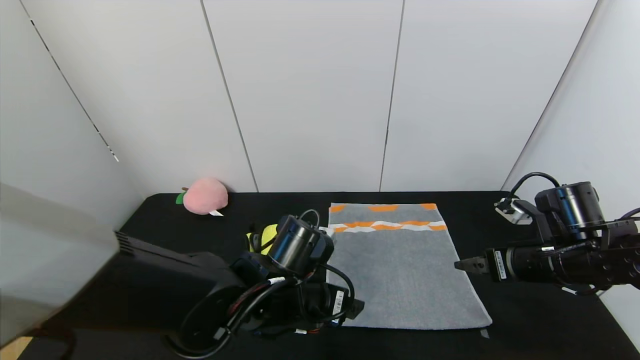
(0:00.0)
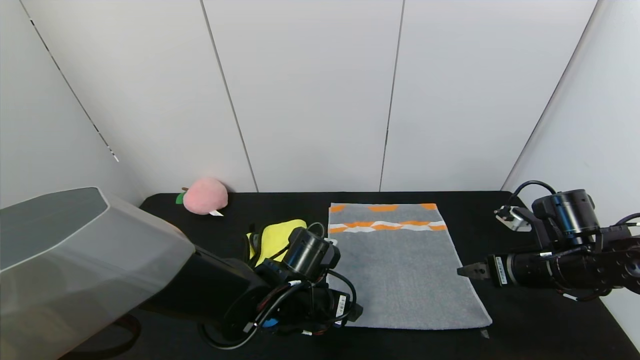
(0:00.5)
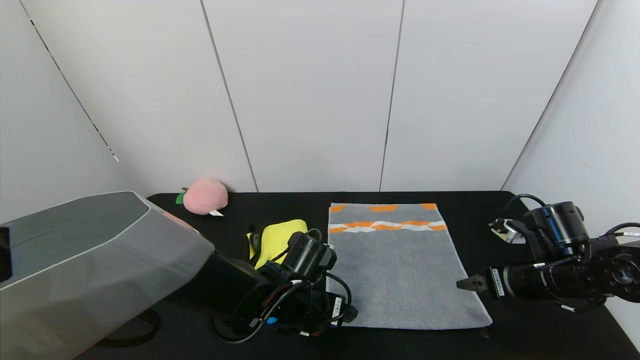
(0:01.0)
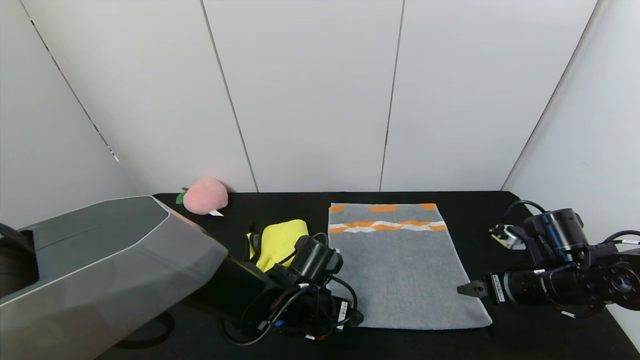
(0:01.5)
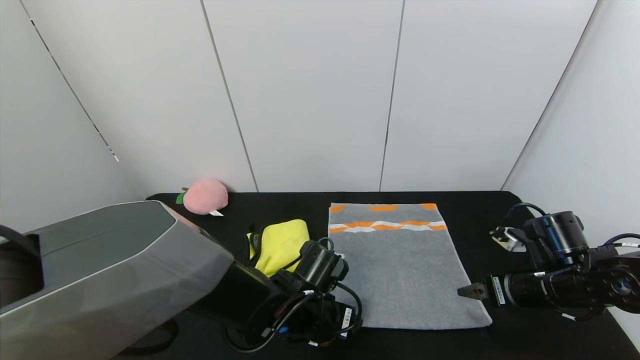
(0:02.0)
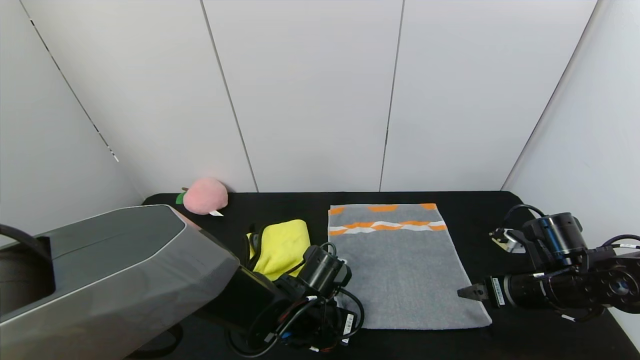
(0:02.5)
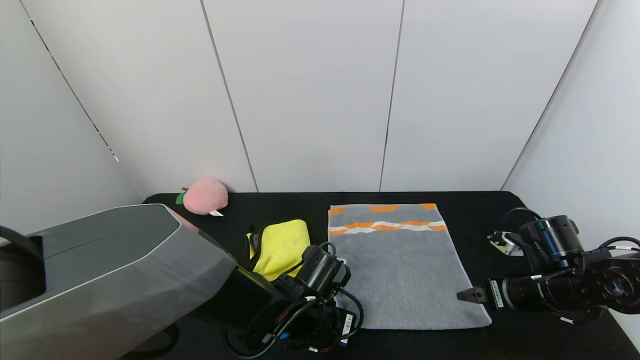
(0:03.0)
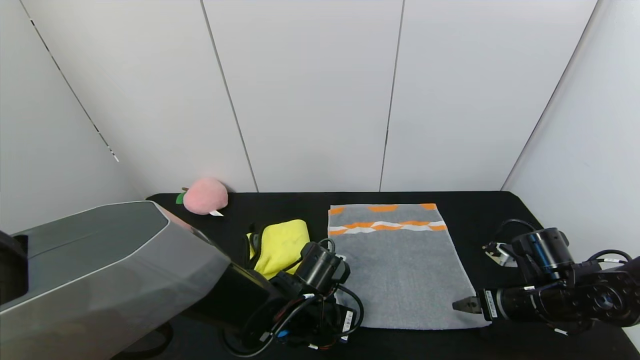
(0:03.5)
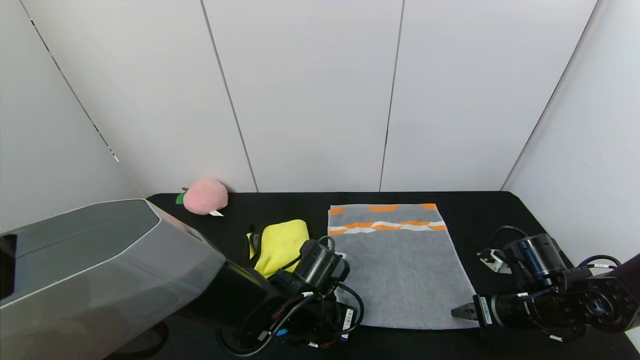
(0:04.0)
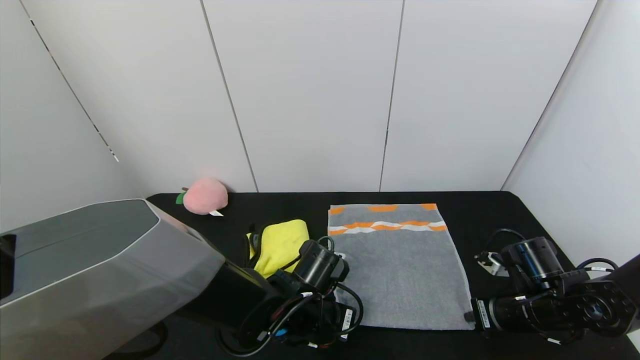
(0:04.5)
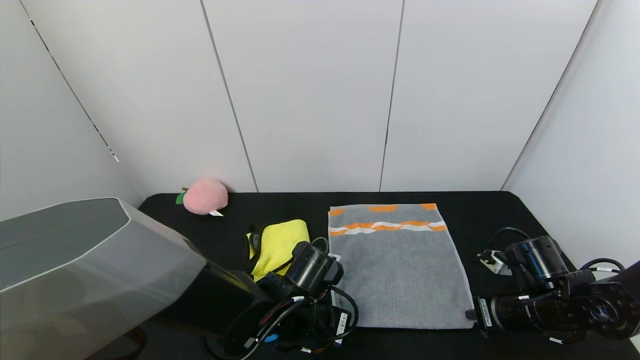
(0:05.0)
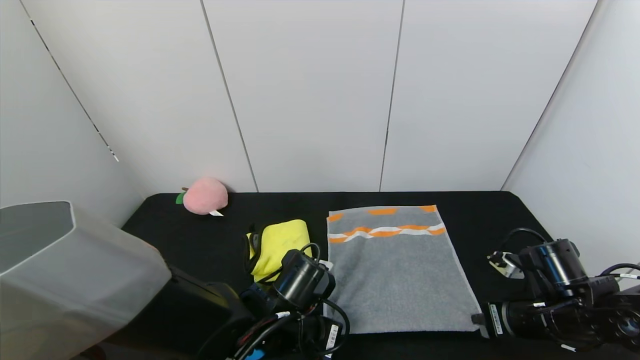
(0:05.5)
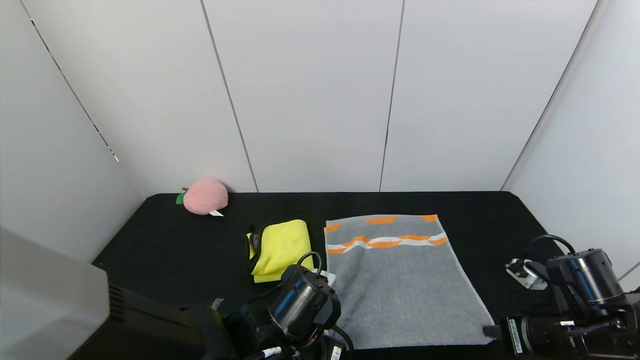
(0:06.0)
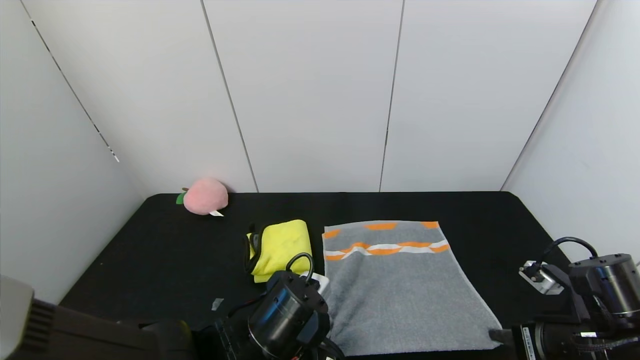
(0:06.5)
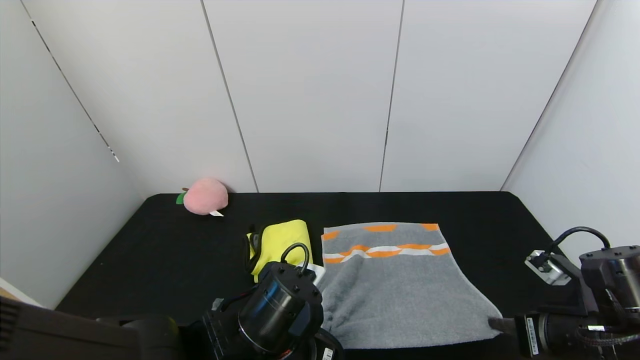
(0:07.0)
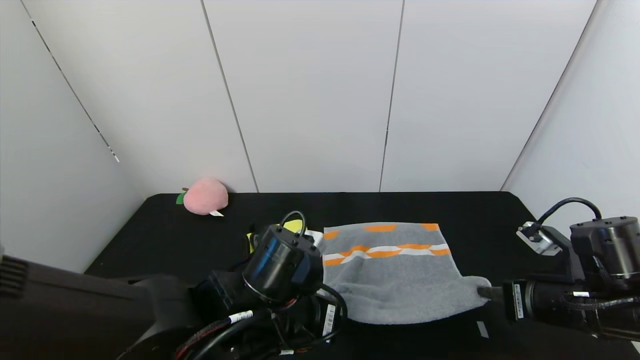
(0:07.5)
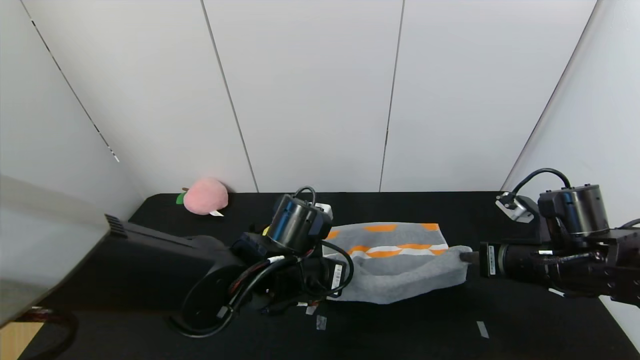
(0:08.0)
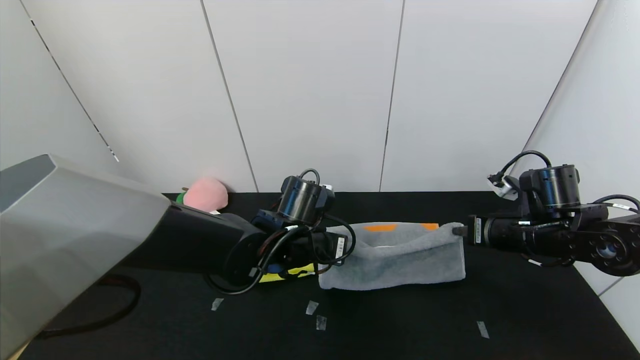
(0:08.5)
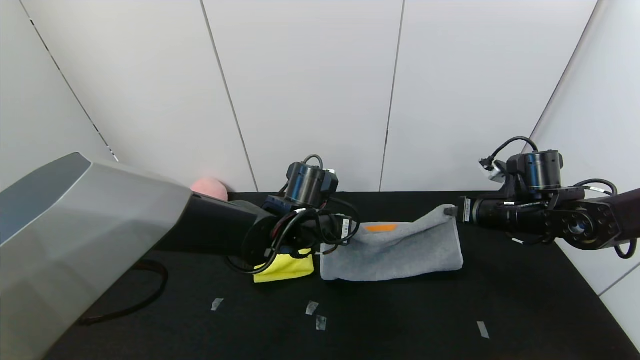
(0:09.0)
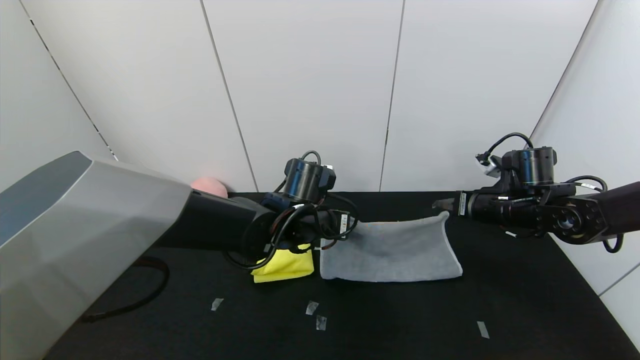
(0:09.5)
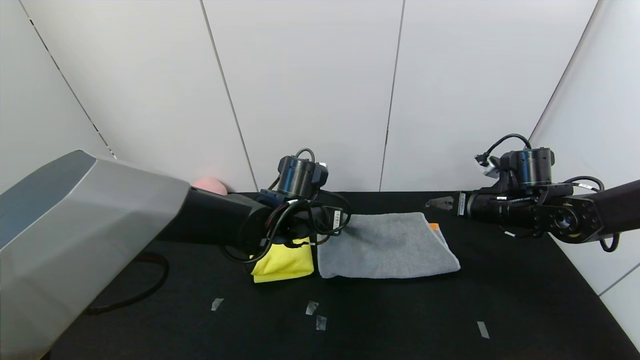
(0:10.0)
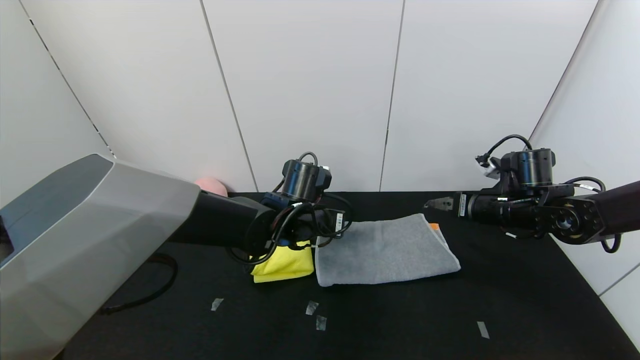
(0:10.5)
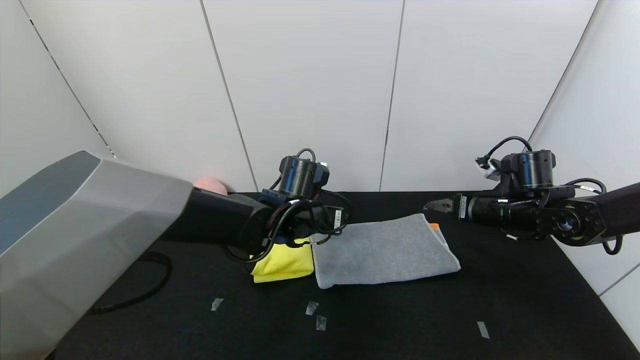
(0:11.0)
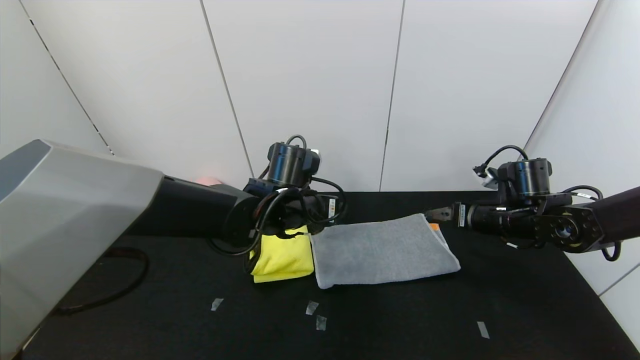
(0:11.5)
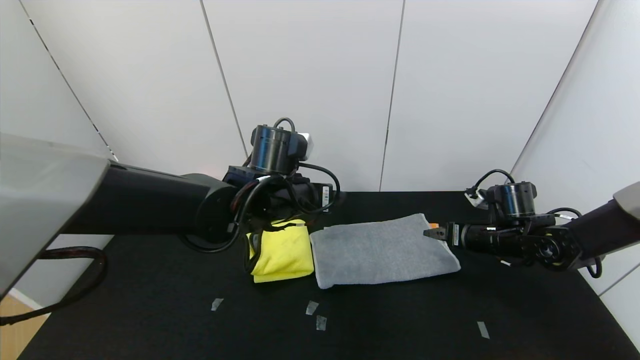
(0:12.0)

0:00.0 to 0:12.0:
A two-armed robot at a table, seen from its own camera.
Task of the whole recording: Use the gripper to fold the yellow towel and grey towel in half twice,then put the yellow towel on the grey towel.
Step, 0:00.0 to 0:11.0: Fold the gray towel upwards with the left gripper.
0:00.0 to 0:02.0: The left gripper moves downward, approximately 5 cm.
0:02.0 to 0:04.0: The left gripper closes its fingers.
0:04.0 to 0:06.0: Both grippers move backward, about 5 cm. The right gripper closes up.
0:06.0 to 0:08.0: The right gripper is displaced forward and upward by some 10 cm. The left gripper moves forward, roughly 5 cm.
0:08.0 to 0:10.0: The grippers both shift forward by roughly 10 cm. The right gripper opens up.
0:10.0 to 0:12.0: The left gripper shifts approximately 5 cm upward, and opens its fingers. The right gripper travels downward by about 5 cm.

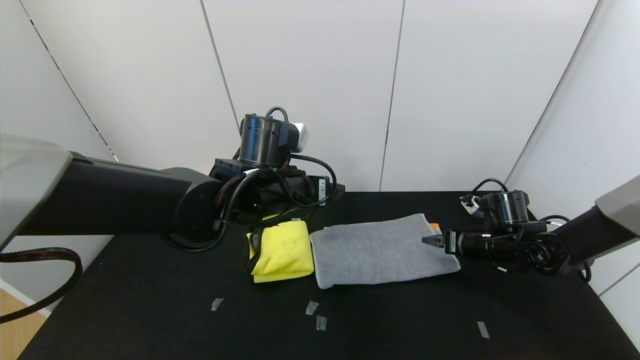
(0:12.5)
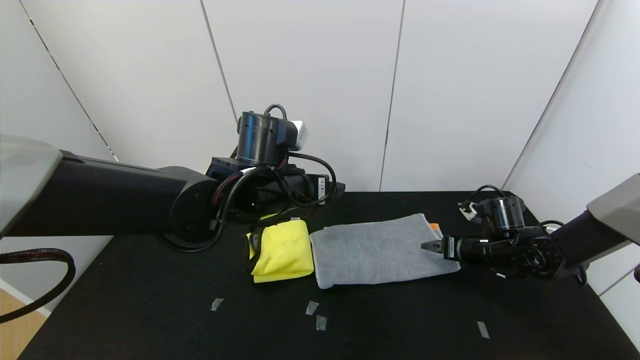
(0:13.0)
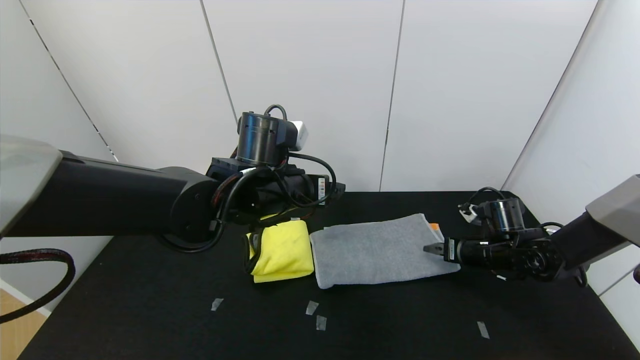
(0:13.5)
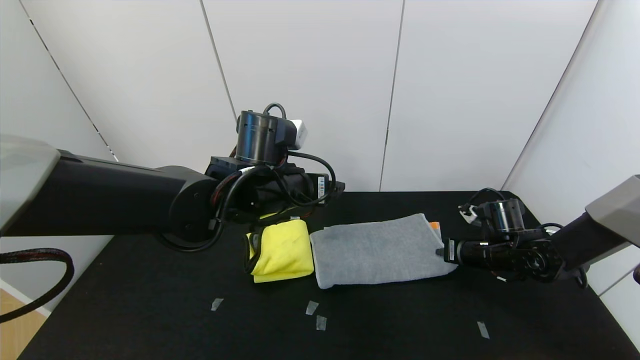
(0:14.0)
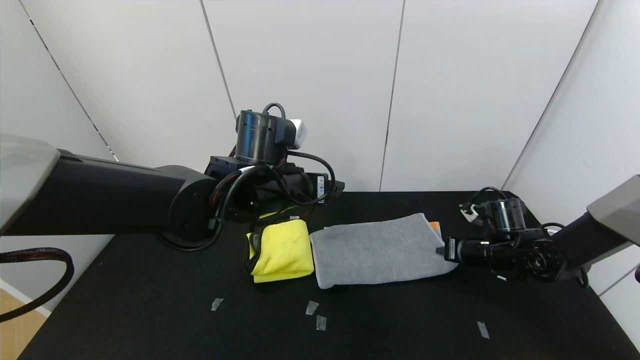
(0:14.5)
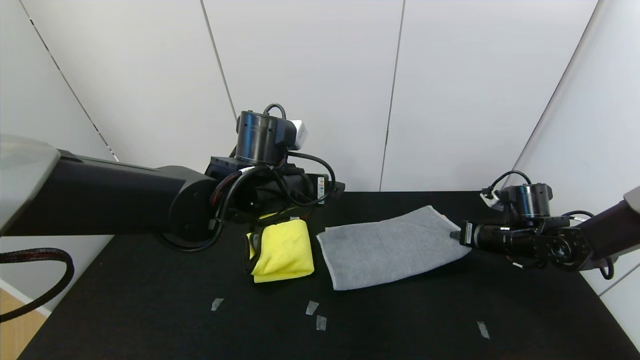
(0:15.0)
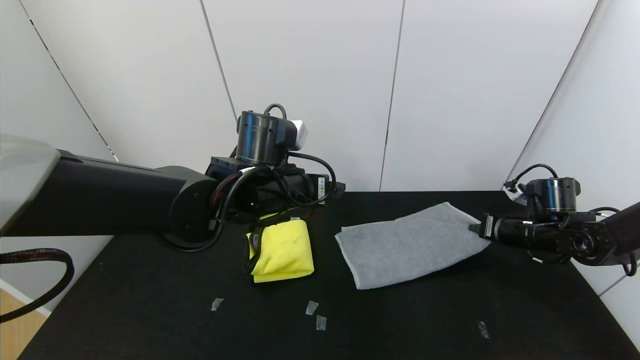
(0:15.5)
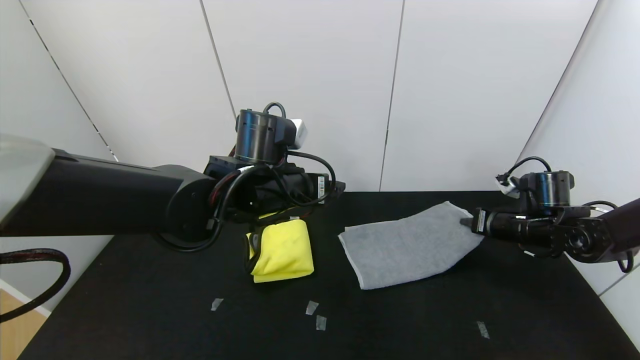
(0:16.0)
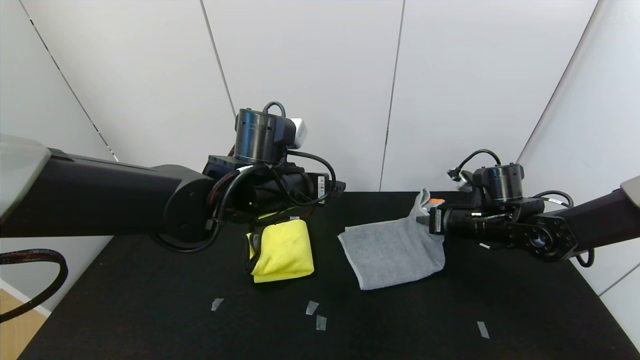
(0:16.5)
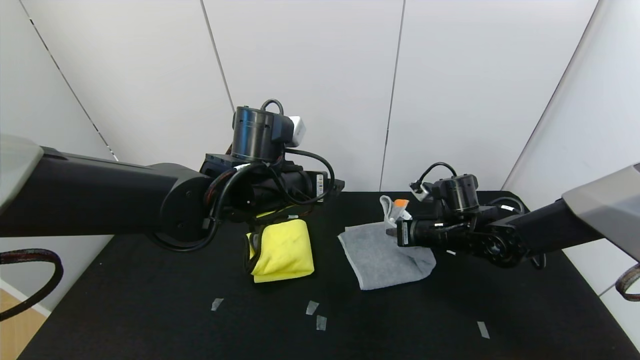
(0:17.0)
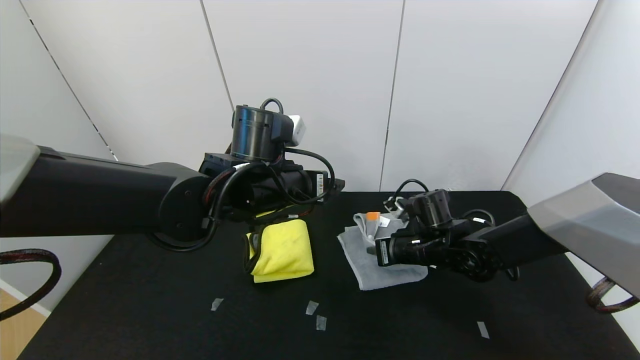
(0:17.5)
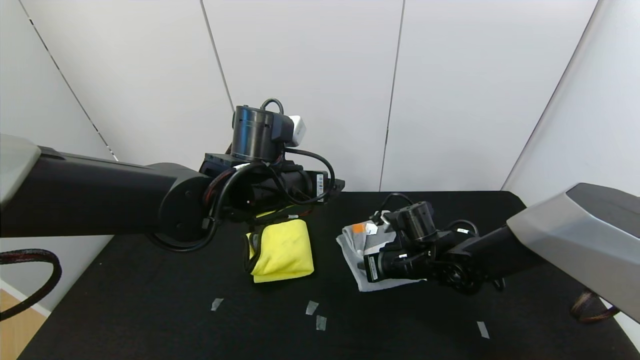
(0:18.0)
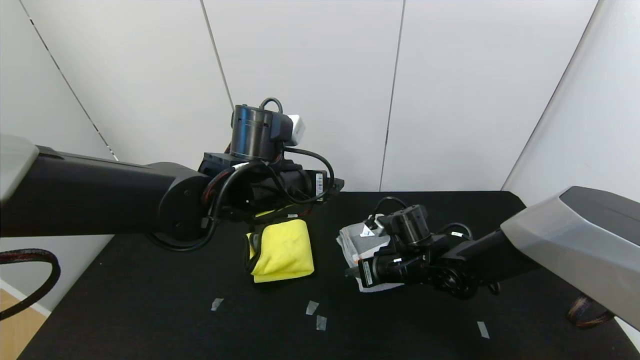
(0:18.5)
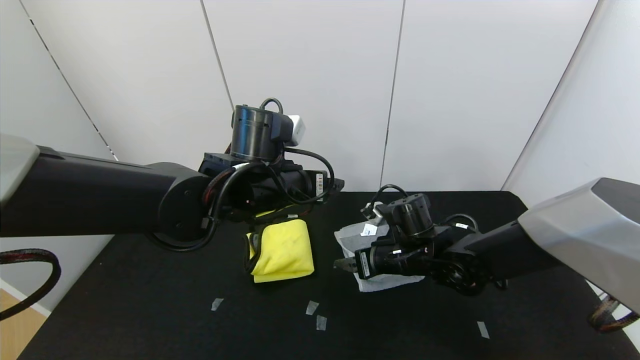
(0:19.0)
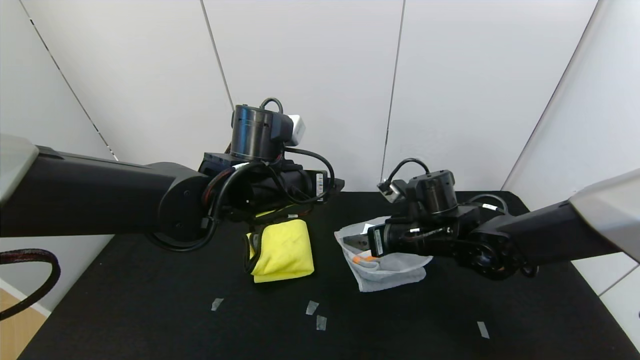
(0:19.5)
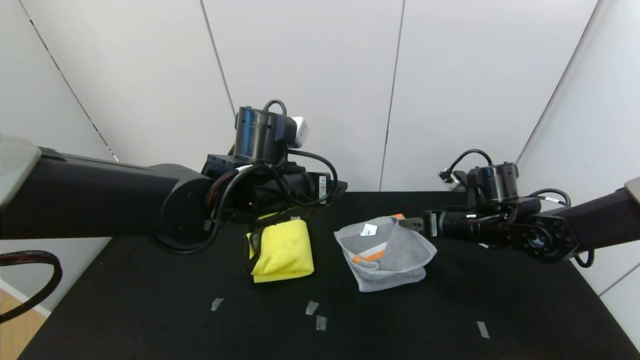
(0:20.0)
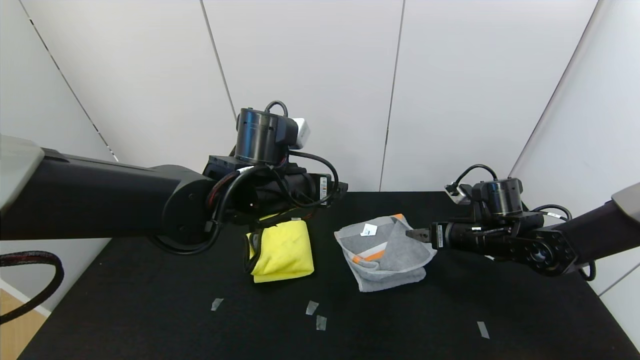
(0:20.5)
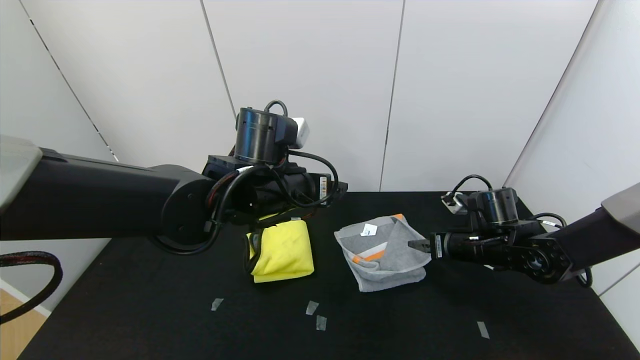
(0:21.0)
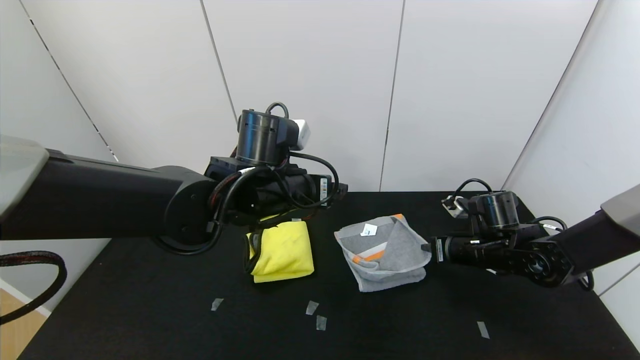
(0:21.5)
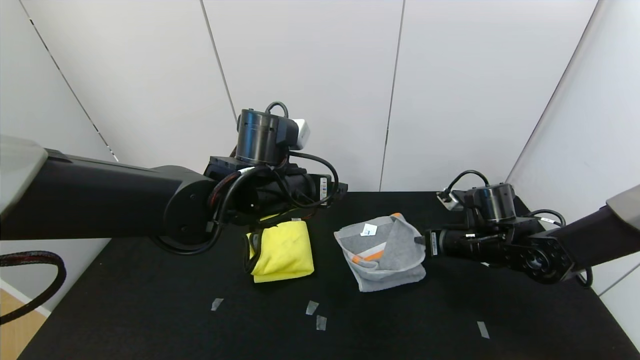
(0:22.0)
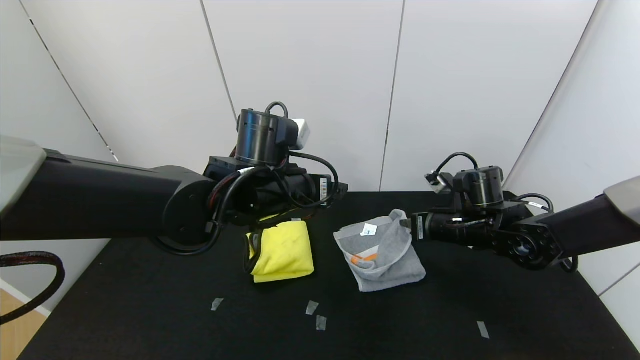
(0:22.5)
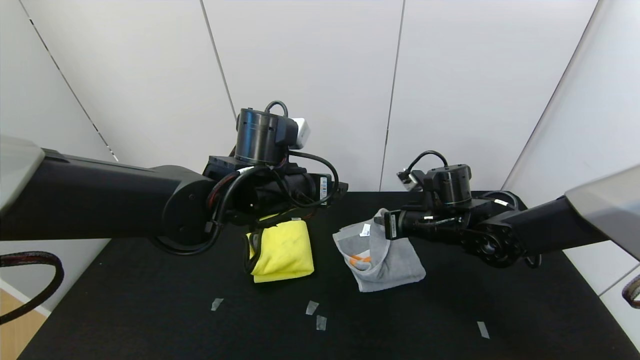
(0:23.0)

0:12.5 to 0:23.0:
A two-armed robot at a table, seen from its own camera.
Task of the whole recording: Use the gripper to fold the yellow towel and grey towel in half twice,then put the yellow towel on the grey towel.
0:12.5 to 0:14.5: The right gripper closes.
0:14.5 to 0:16.5: The right gripper shifts approximately 5 cm upward.
0:16.5 to 0:19.0: The right gripper is displaced to the left by roughly 15 cm, and opens its fingers.
0:19.0 to 0:21.0: The right gripper shifts roughly 15 cm to the right.
0:21.0 to 0:23.0: The right gripper travels to the left by approximately 10 cm, and closes its fingers.
